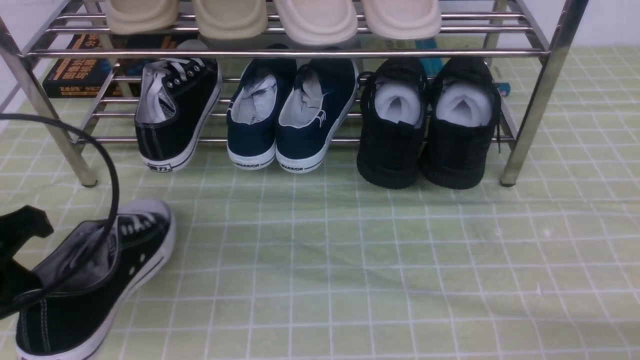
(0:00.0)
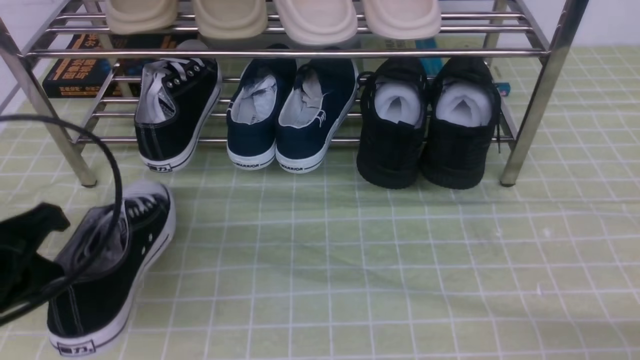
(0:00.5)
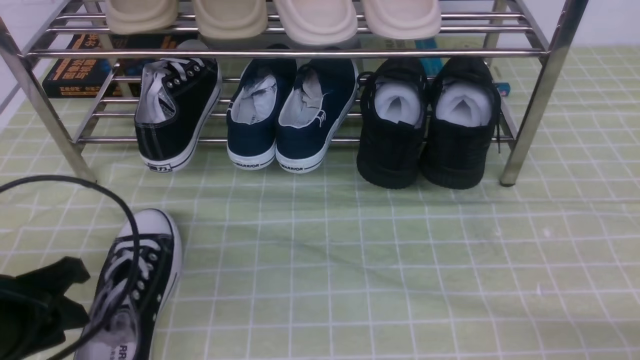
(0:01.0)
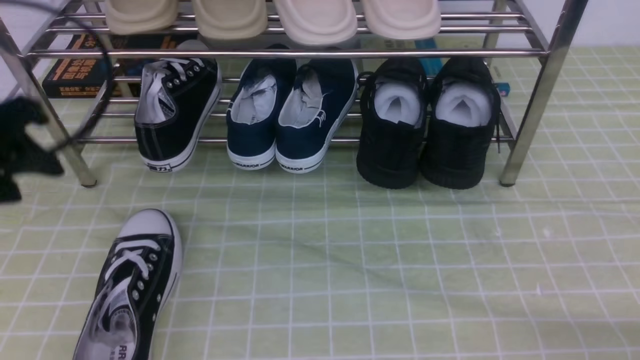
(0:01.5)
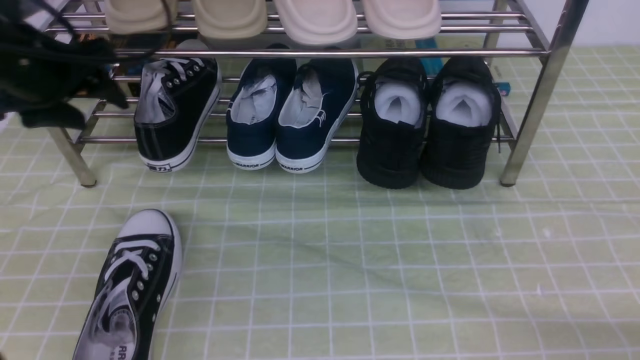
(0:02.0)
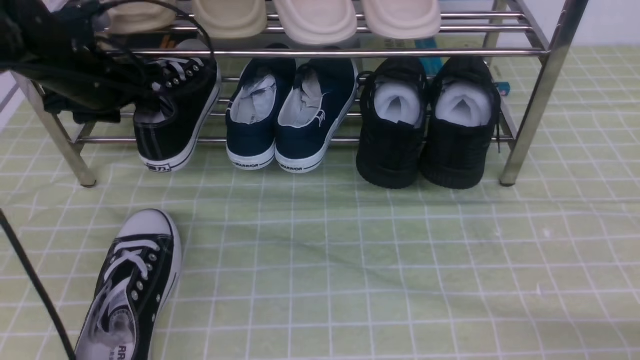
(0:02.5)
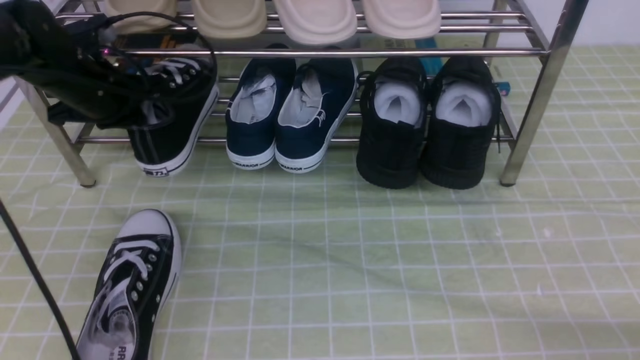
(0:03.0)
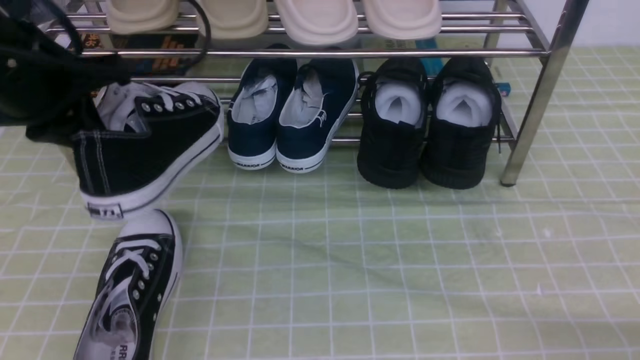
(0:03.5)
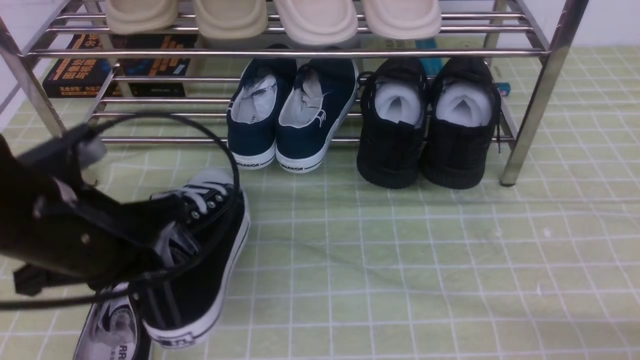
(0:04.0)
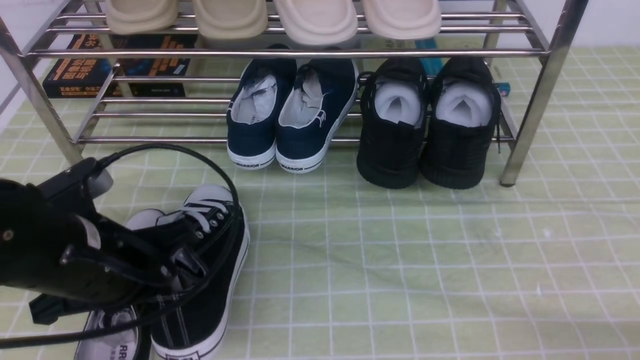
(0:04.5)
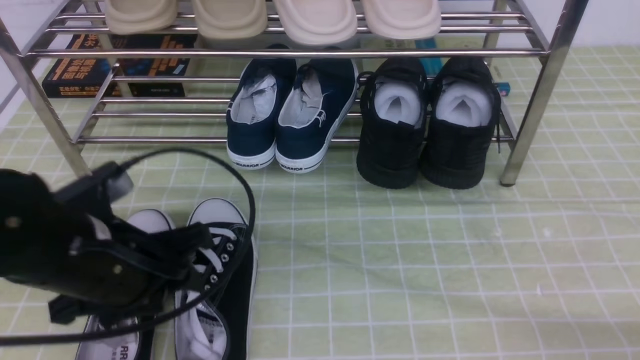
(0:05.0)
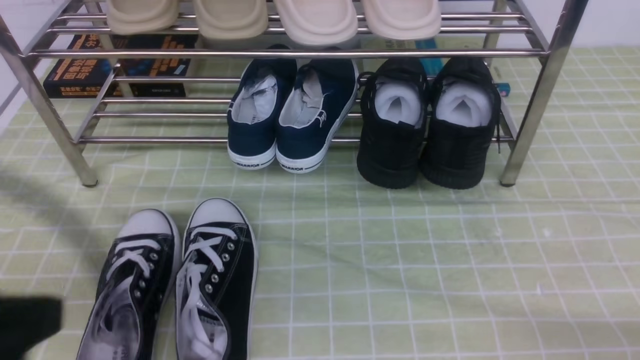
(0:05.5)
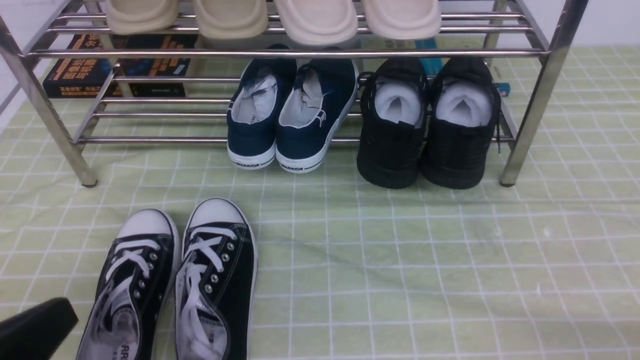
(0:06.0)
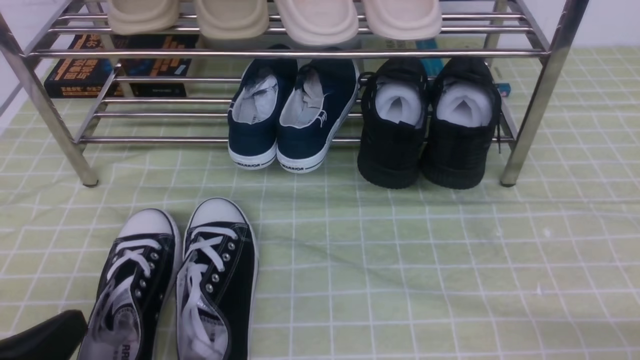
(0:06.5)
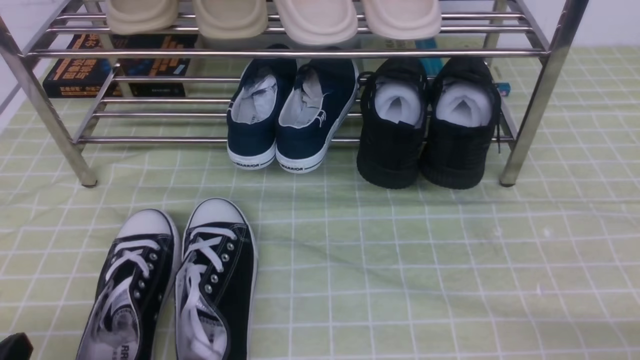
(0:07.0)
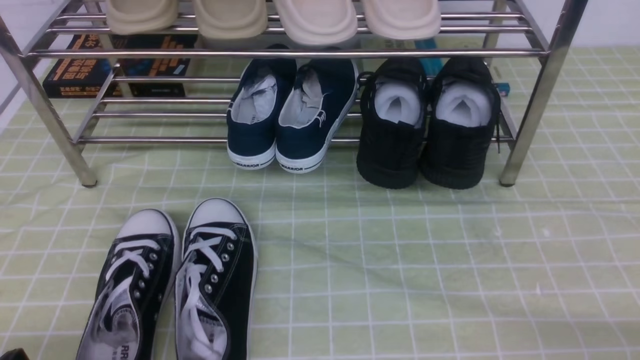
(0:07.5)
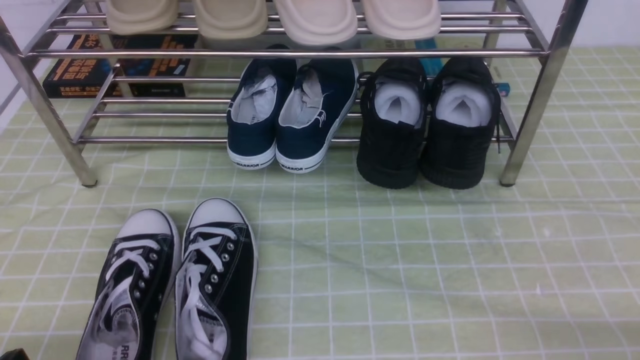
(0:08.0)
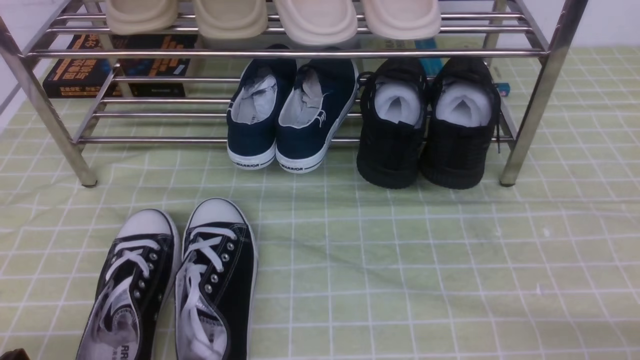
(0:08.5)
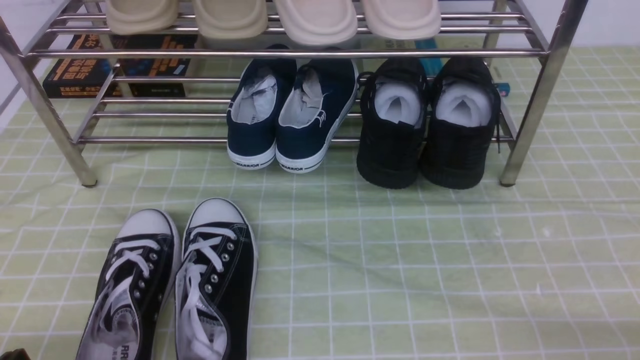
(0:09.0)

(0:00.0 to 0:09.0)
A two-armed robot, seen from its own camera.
Step, 0:01.5 - 0:02.5: use the left arm to clamp a shoe on the left side of the shoe rack.
Step, 0:03.5 - 0:05.5: Use your left arm to remove the clamped shoe from the shoe rack and put it down.
0:00.0 - 0:02.0: The left gripper is displaced forward by about 20 cm, and opens its fingers.
0:02.0 - 0:04.5: The left gripper travels backward, to the right and downward by approximately 20 cm, and closes its fingers.
0:04.5 - 0:07.0: The left gripper is displaced backward and to the left by roughly 15 cm, and opens and closes again.

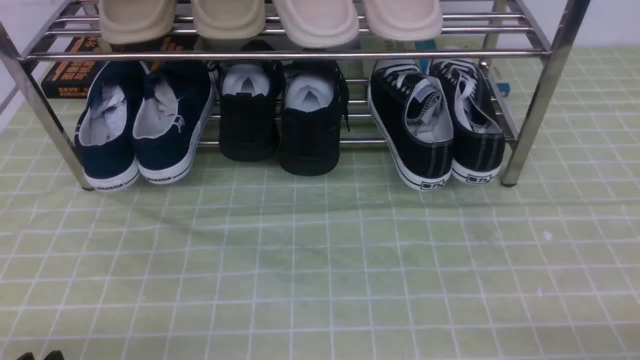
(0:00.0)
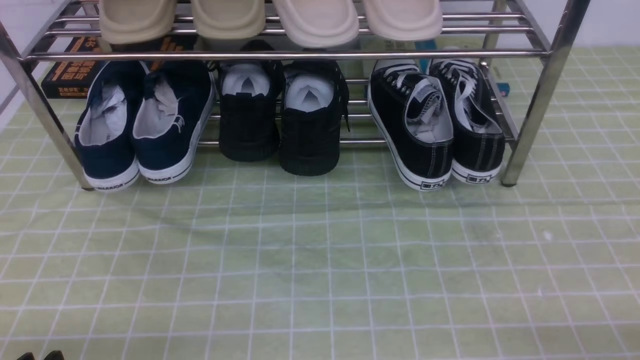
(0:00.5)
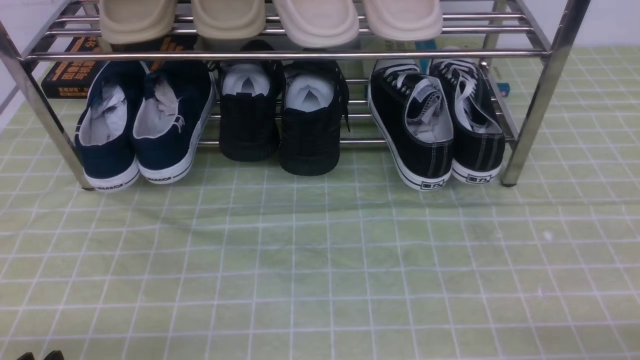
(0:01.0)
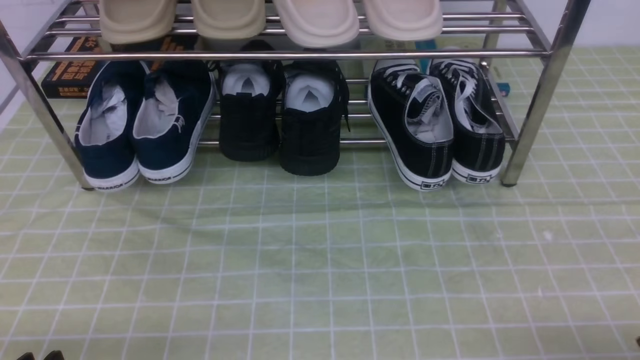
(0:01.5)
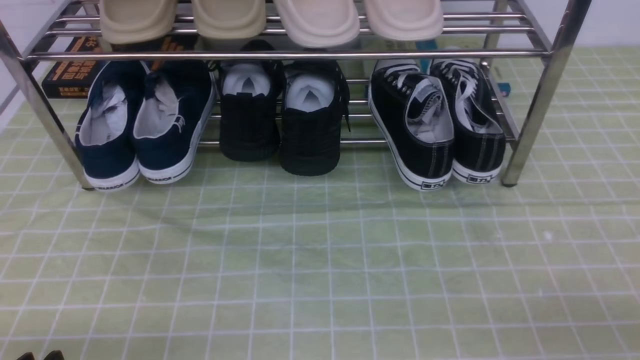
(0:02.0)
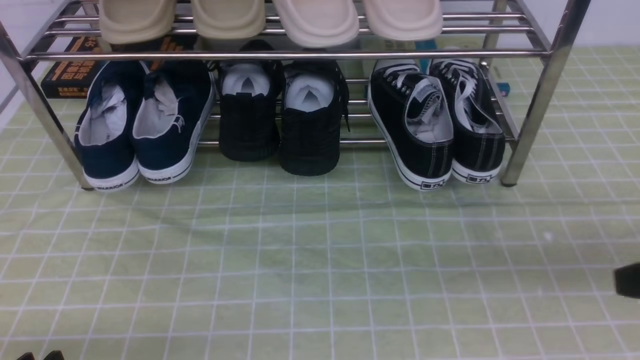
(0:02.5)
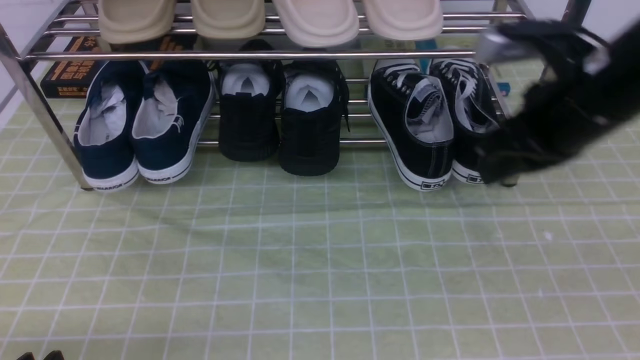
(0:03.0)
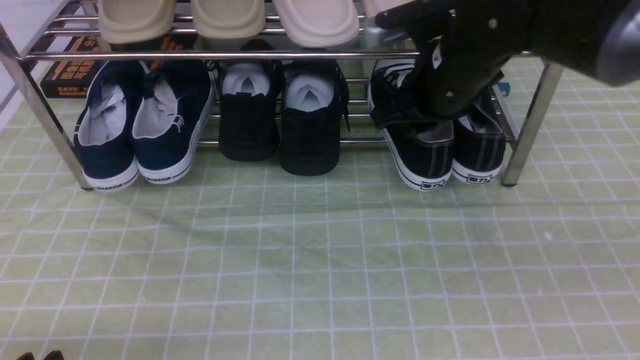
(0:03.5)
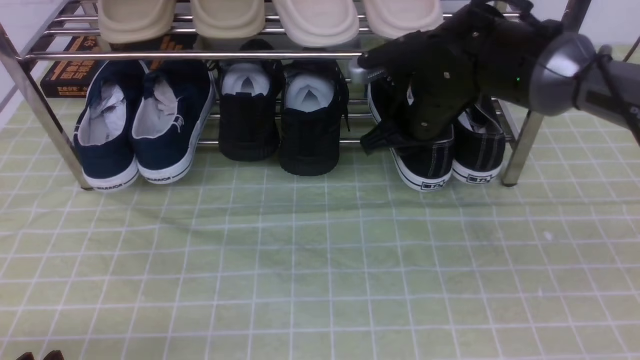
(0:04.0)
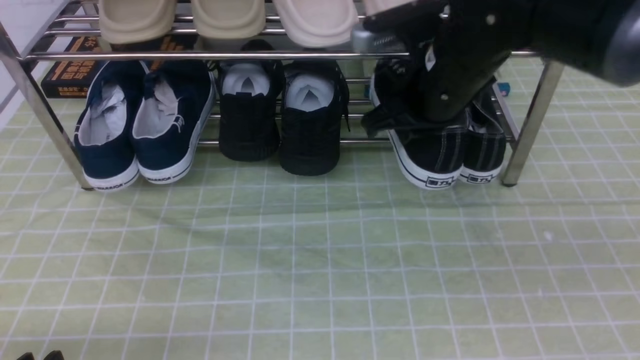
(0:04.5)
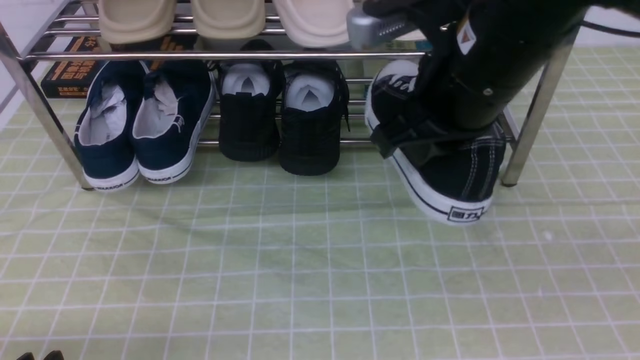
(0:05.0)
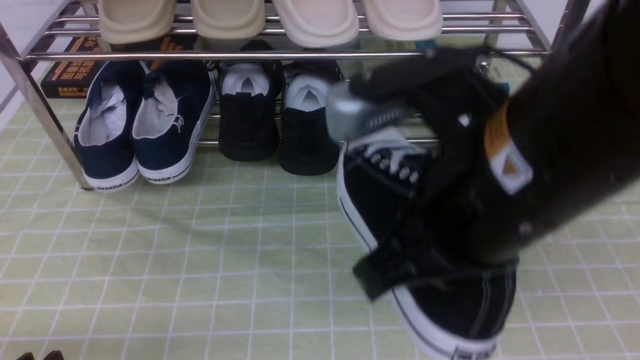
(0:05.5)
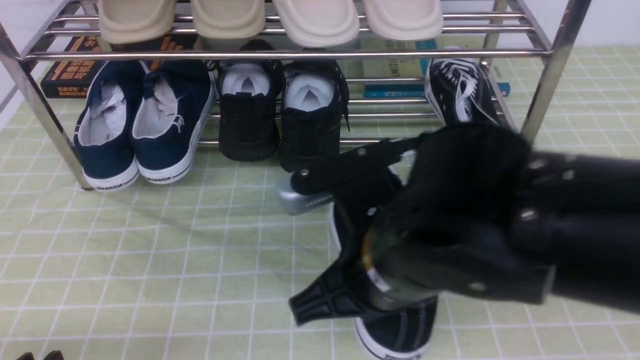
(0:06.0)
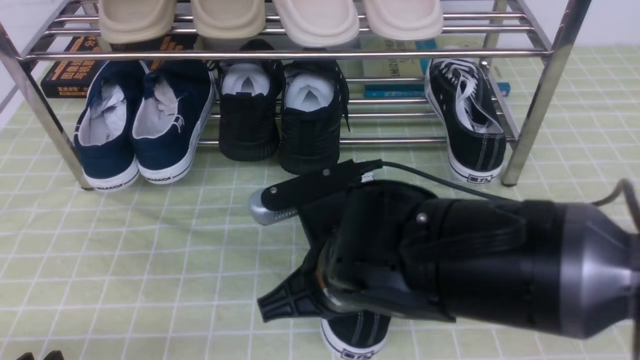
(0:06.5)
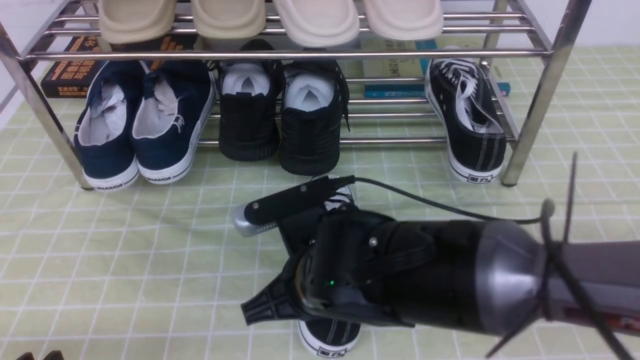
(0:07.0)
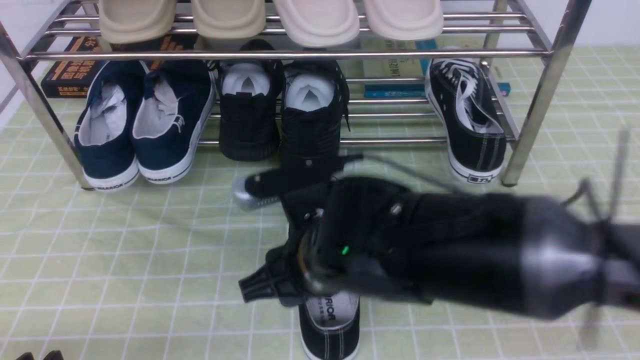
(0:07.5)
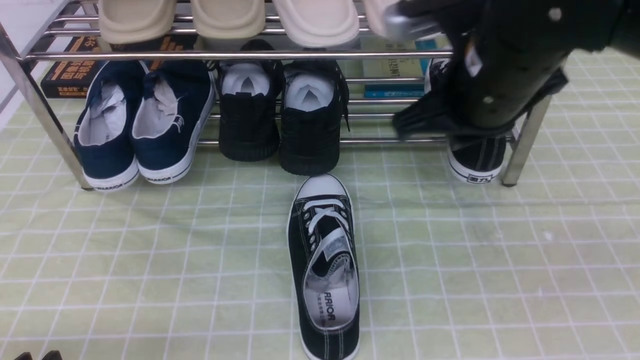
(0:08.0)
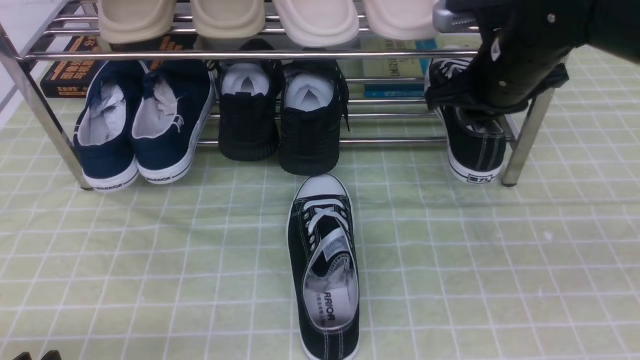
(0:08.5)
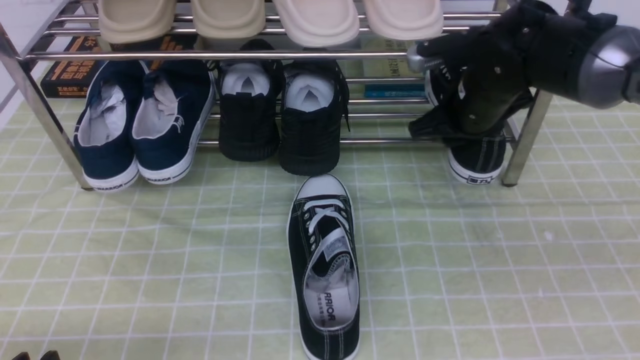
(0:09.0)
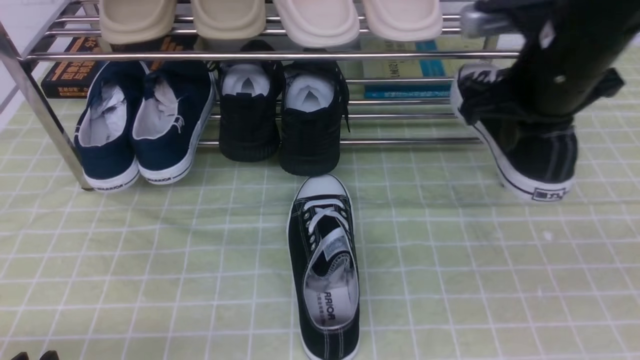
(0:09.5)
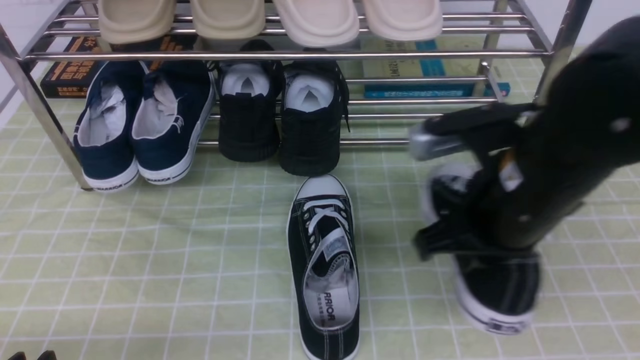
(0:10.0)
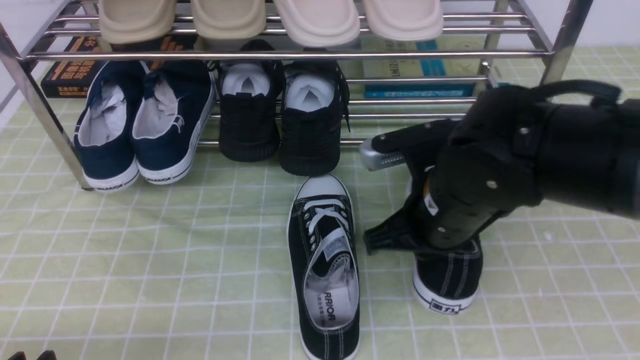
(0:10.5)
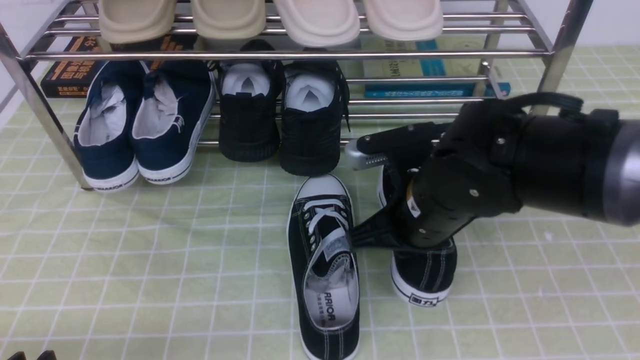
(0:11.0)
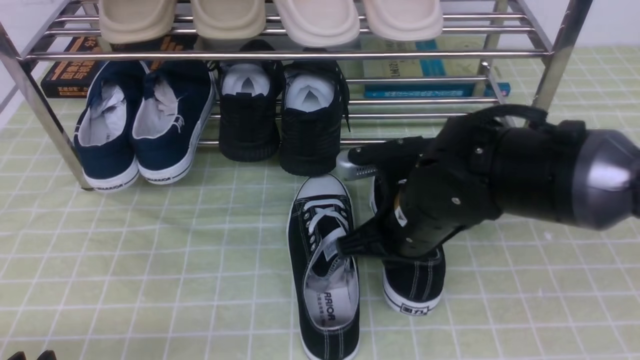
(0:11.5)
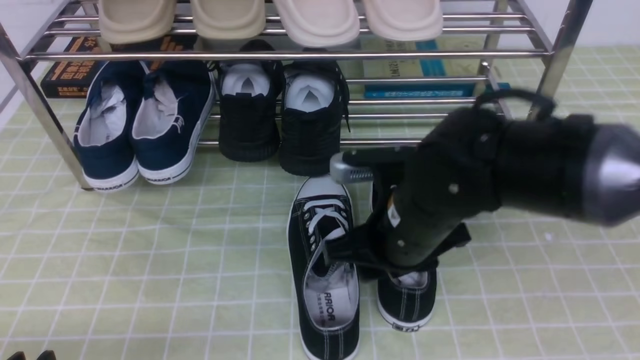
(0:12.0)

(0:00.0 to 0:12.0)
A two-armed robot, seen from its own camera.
Step, 0:00.0 - 0:04.0: use the right arm to clamp a shoe on the right side of the shoe rack.
Step, 0:04.5 - 0:07.5: use the right arm to take out the clamped shoe from the shoe rack and put it down.
Step, 0:08.0 - 0:09.0: use the right arm to clamp a shoe on the right side of the shoe rack.
0:02.0 - 0:04.0: The right gripper moves forward and to the left, roughly 40 cm.
0:04.0 - 0:06.0: The right gripper is displaced backward by about 20 cm, and closes.
0:06.0 - 0:08.0: The right gripper moves forward, to the right and upward, about 15 cm, and opens, then closes again.
0:08.0 - 0:10.0: The right gripper is displaced backward by approximately 5 cm, and opens, then closes once more.
0:10.0 - 0:12.0: The right gripper goes about 5 cm to the left, and opens up.
